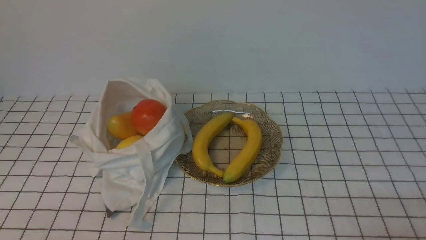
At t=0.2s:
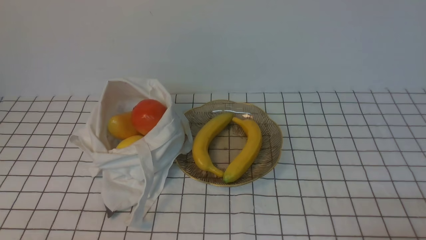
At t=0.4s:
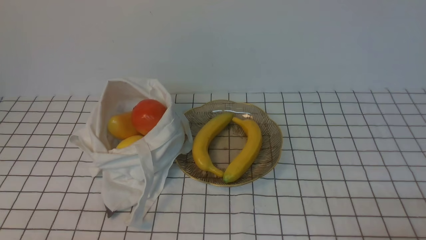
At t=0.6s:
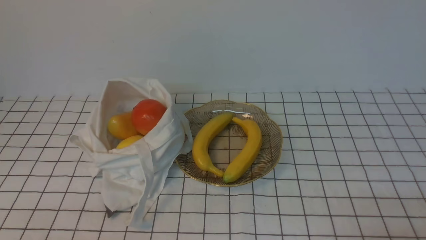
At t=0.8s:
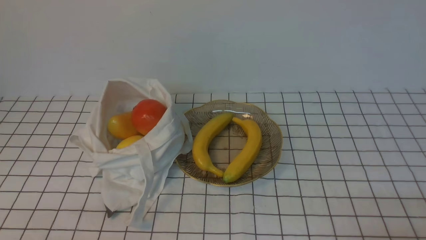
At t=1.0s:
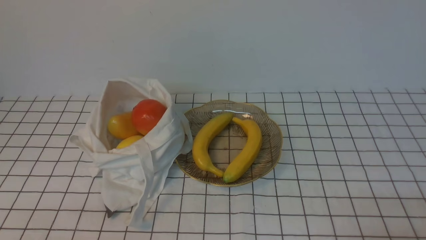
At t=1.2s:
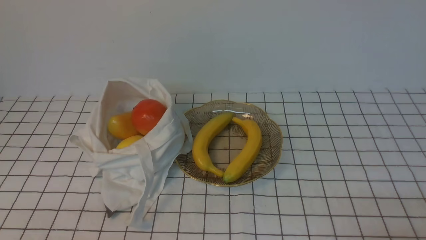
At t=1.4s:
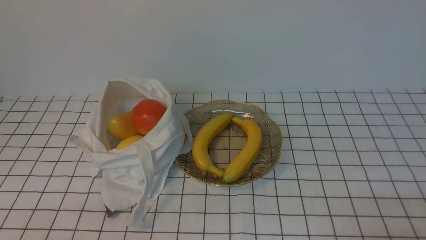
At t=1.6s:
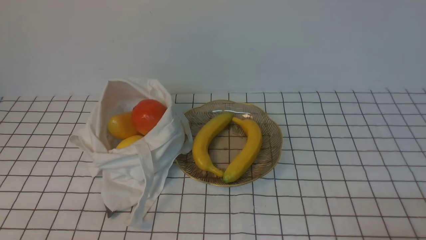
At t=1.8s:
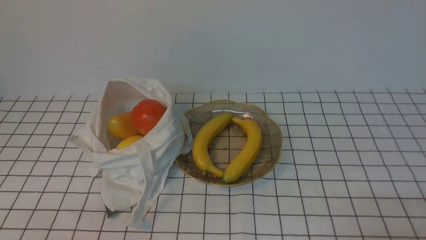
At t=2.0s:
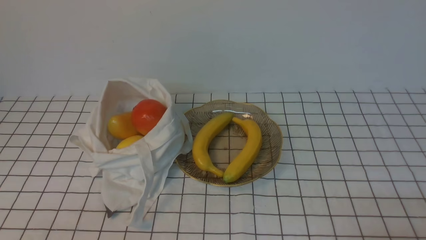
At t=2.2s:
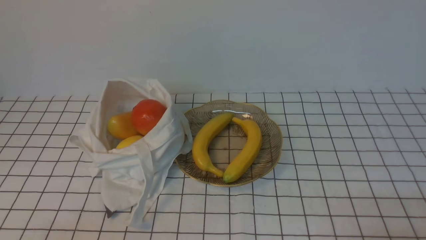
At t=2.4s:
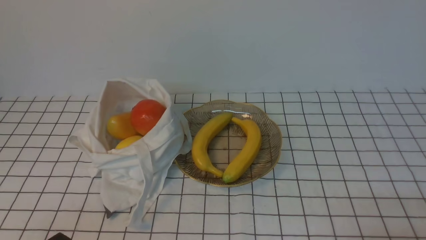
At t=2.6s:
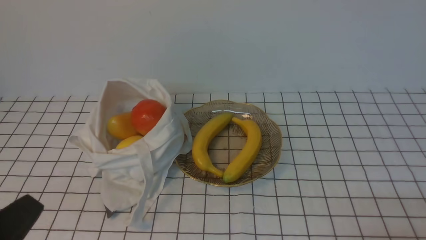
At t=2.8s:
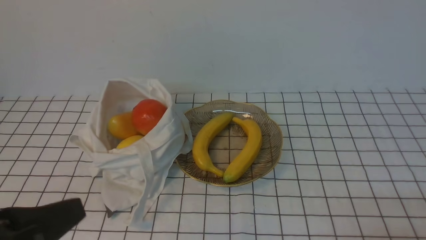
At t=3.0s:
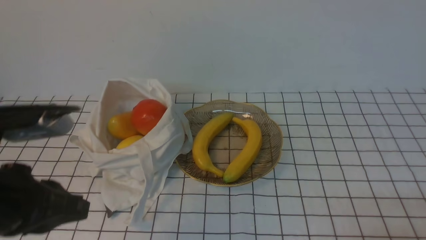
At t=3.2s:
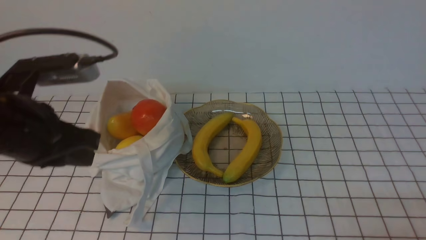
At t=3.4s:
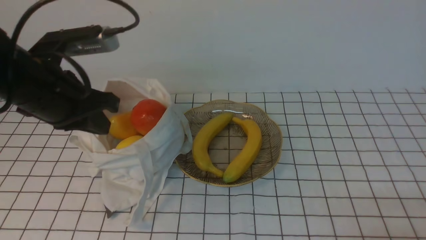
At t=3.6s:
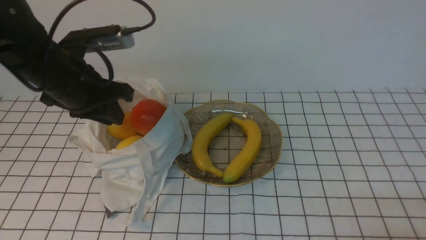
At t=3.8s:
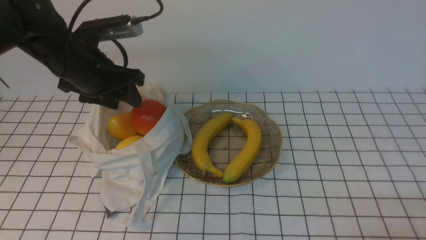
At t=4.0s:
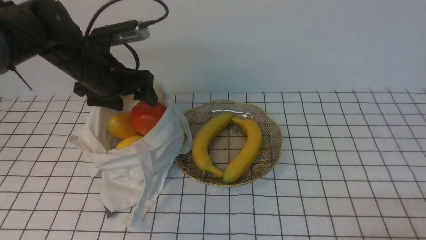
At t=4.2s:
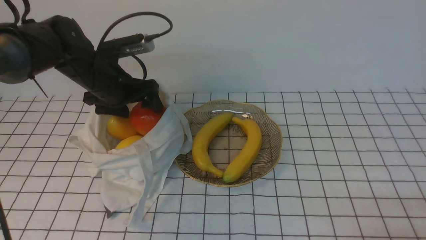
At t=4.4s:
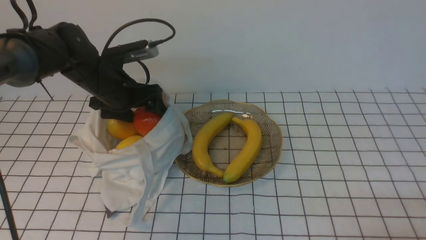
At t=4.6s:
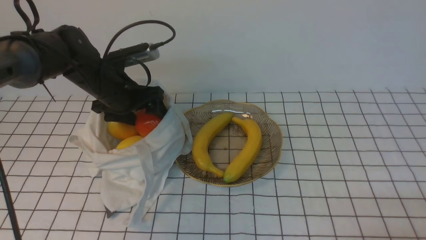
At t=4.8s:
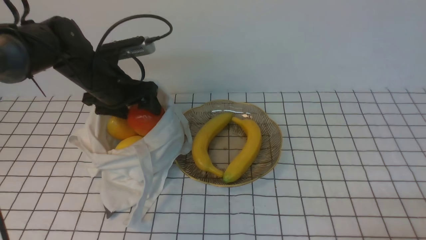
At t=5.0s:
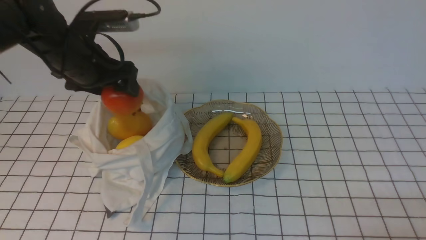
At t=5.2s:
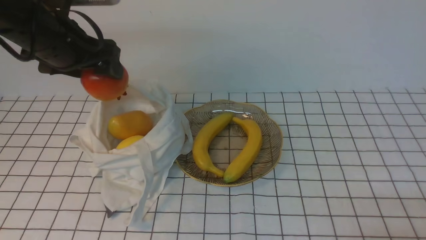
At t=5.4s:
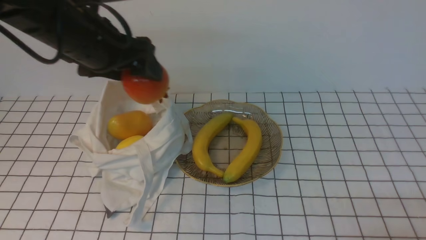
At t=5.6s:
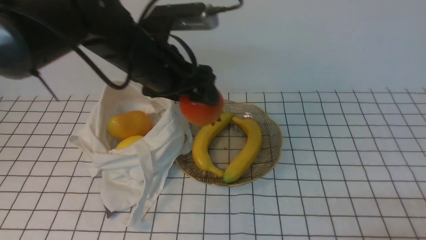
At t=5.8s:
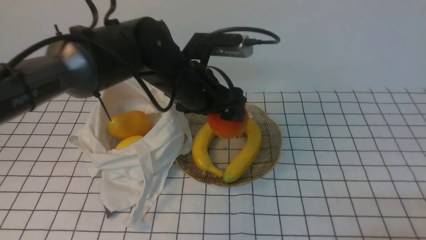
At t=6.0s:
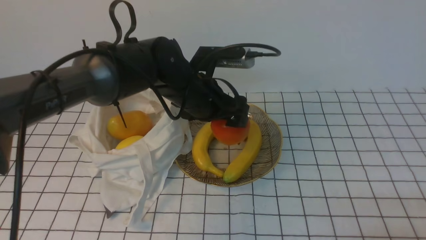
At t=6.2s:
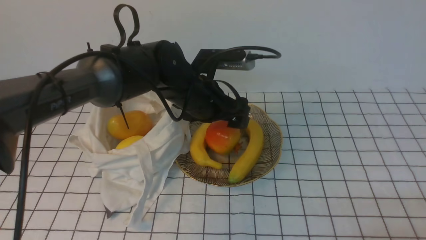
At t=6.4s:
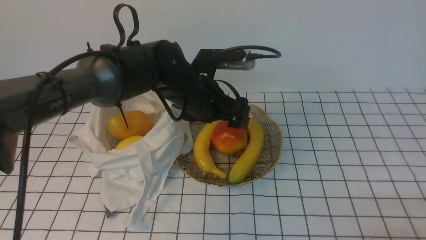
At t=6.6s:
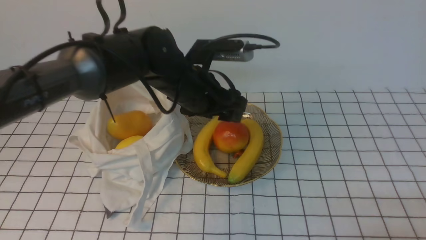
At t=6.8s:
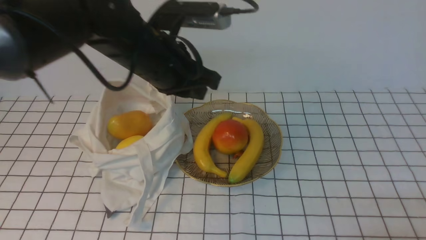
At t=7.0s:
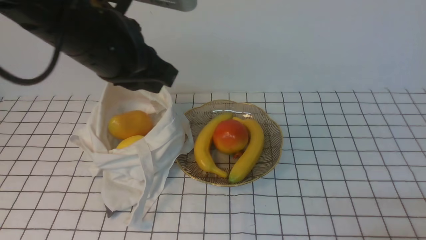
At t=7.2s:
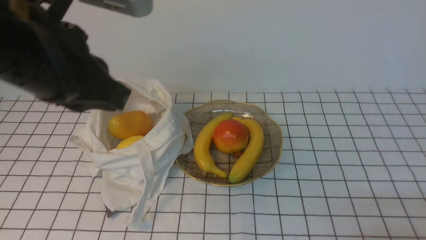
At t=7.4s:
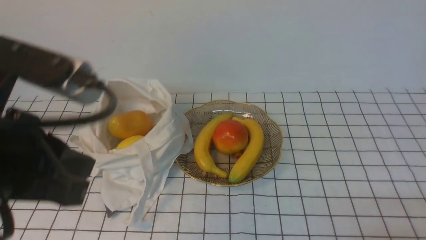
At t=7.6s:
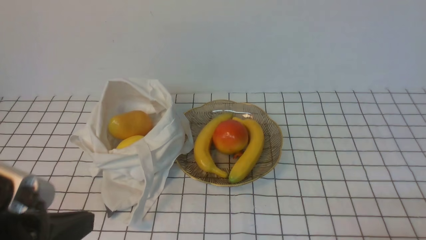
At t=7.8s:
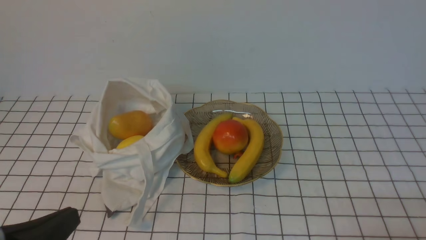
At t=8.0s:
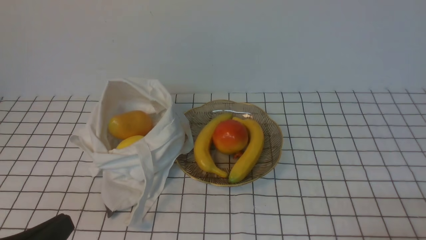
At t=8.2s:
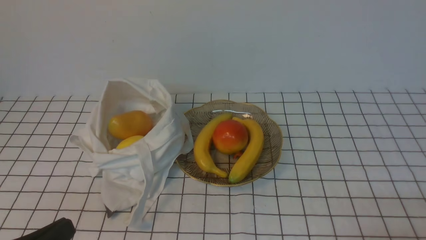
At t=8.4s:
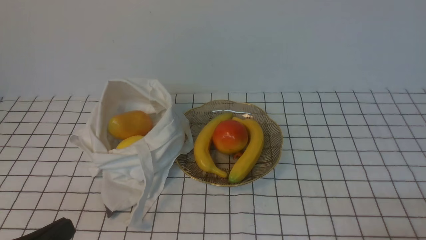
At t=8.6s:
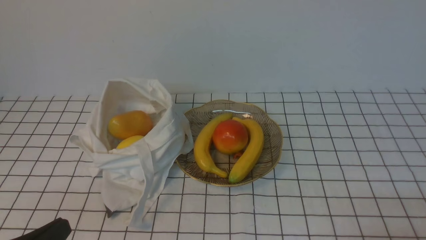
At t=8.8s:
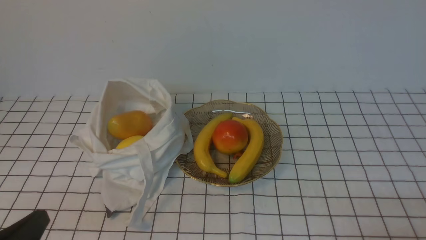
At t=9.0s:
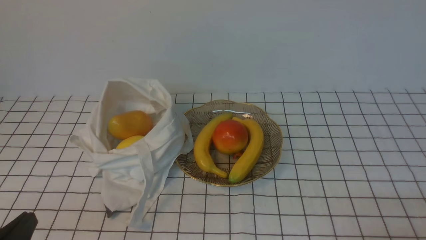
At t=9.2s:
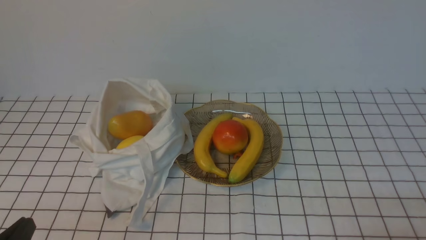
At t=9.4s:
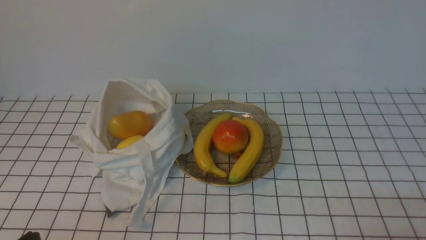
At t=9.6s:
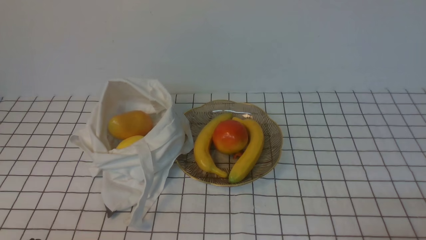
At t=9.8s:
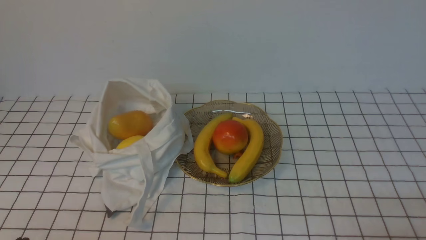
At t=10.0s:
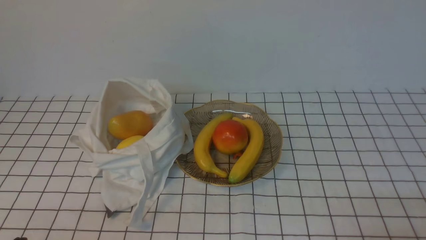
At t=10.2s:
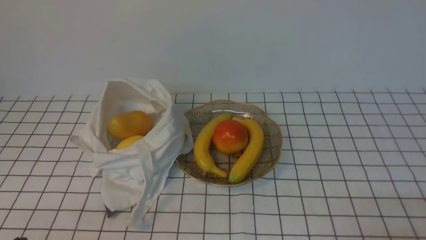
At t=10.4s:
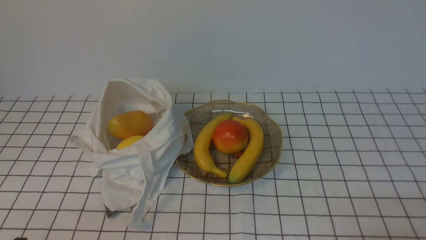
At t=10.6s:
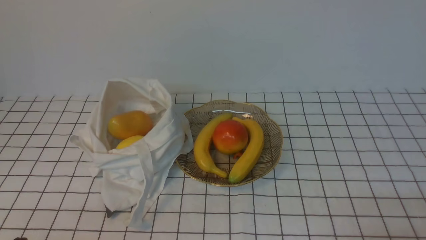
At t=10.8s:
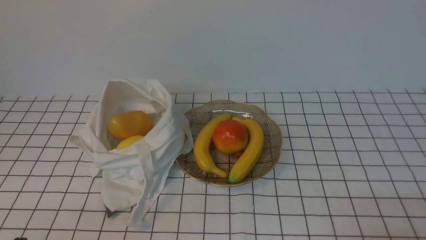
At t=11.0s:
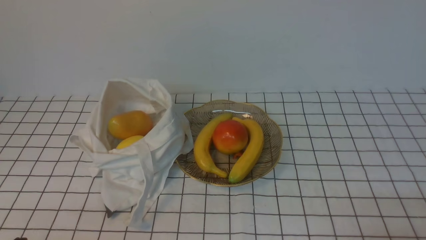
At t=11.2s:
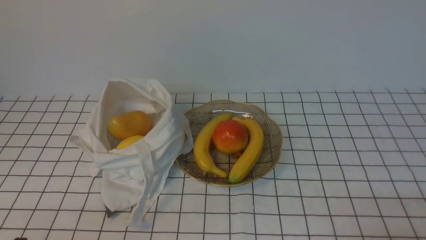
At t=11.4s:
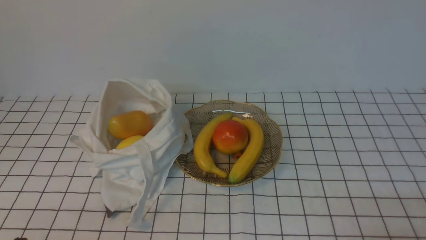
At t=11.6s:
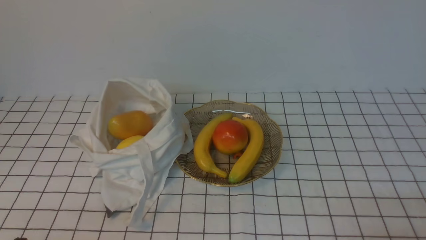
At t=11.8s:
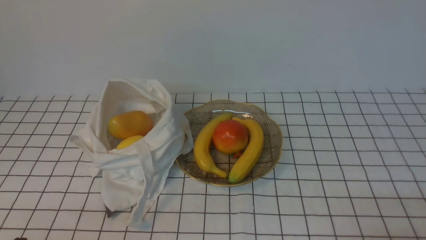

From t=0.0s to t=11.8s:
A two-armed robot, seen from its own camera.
Step, from t=0.0s to t=4.8s: use the left arm to grab a pomegranate from the bag.
Step, from t=5.0s to t=6.6s: use the left arm to put the pomegranate into the empty plate on the right.
From t=0.0s to t=1.4s: The two grippers keep their place.
From t=1.4s to t=3.0s: The left gripper is displaced upward and forward by approximately 20 cm.
From t=3.0s to t=4.4s: The left gripper is displaced forward by about 25 cm, and opens up.
From t=4.4s to t=6.0s: The left gripper goes about 15 cm to the right.
From t=6.0s to t=7.4s: The left gripper heads backward, to the left and upward, covering about 30 cm, and closes.
From t=7.4s to t=8.8s: The left gripper travels downward and backward by about 15 cm.
From t=8.8s to t=10.4s: The grippers stay close to where they were, moving slightly.
From t=10.4s to t=11.8s: Both grippers stay put.
